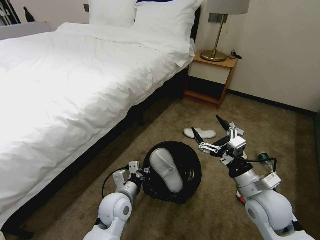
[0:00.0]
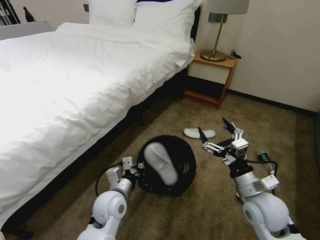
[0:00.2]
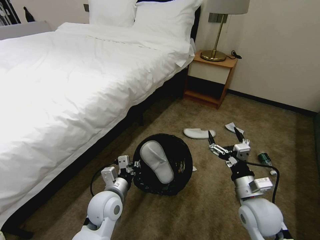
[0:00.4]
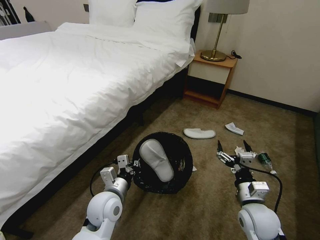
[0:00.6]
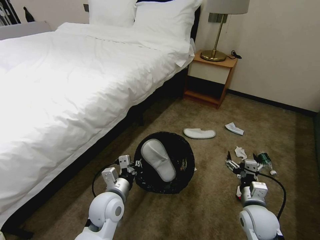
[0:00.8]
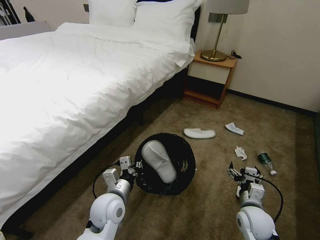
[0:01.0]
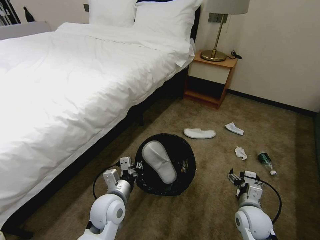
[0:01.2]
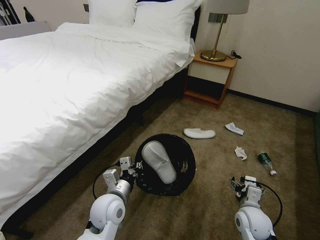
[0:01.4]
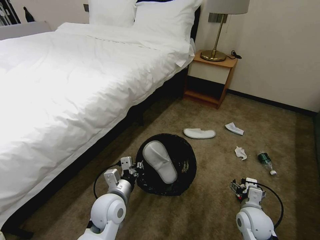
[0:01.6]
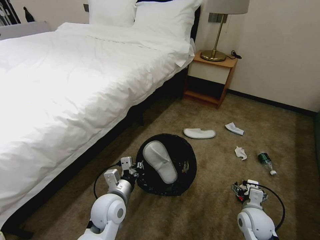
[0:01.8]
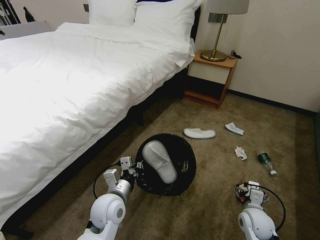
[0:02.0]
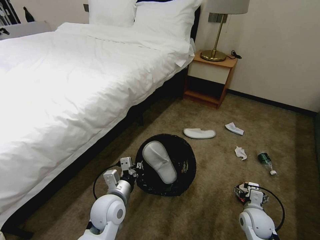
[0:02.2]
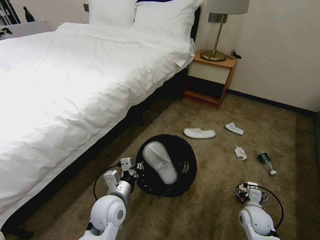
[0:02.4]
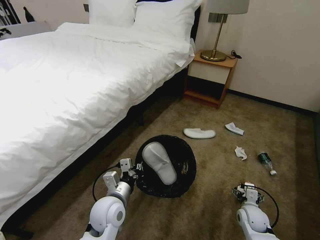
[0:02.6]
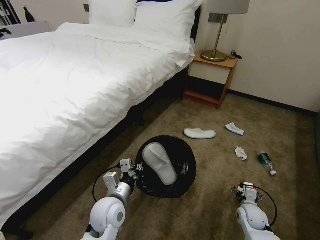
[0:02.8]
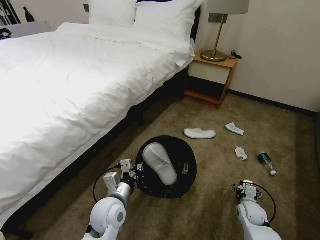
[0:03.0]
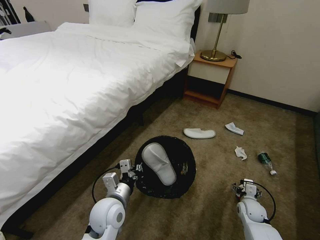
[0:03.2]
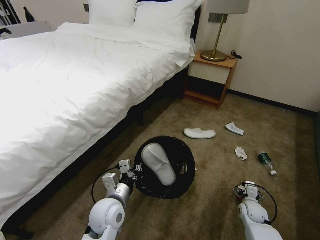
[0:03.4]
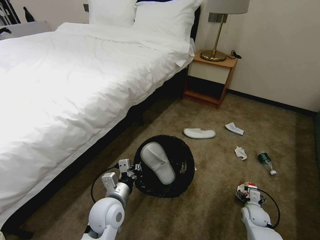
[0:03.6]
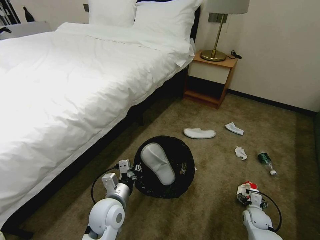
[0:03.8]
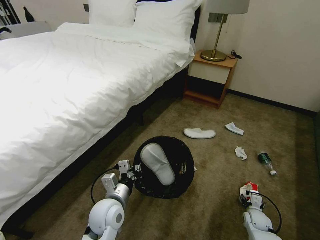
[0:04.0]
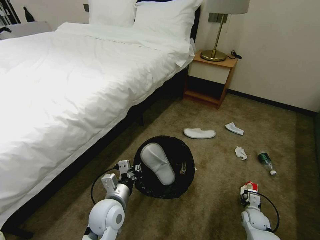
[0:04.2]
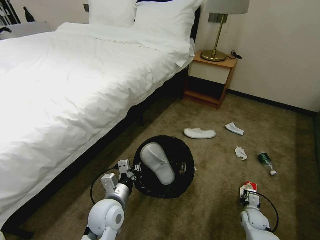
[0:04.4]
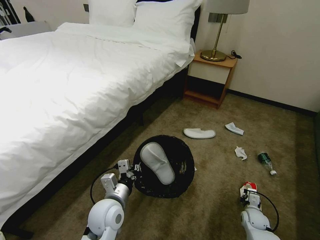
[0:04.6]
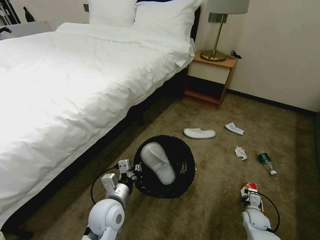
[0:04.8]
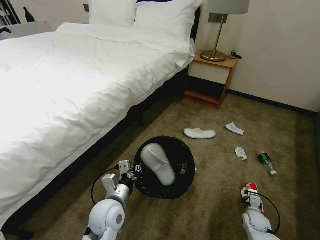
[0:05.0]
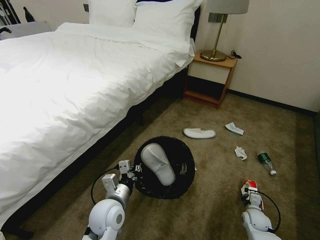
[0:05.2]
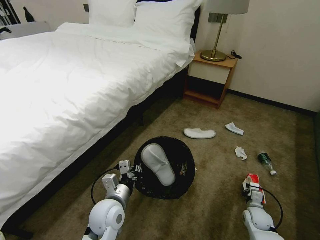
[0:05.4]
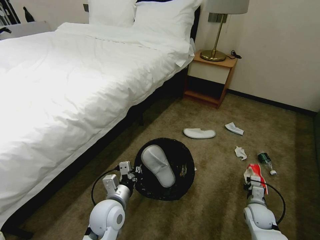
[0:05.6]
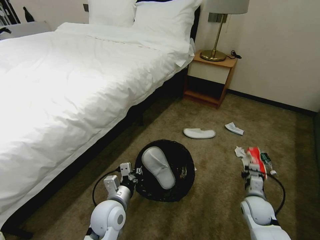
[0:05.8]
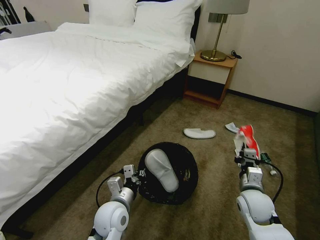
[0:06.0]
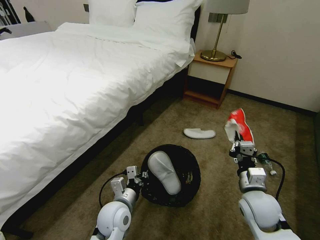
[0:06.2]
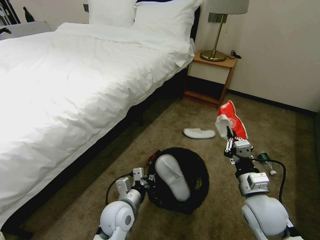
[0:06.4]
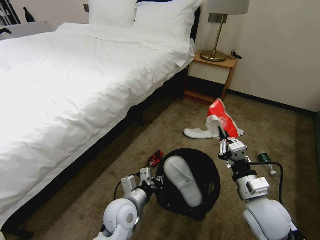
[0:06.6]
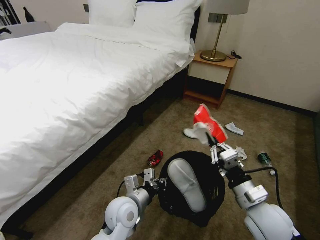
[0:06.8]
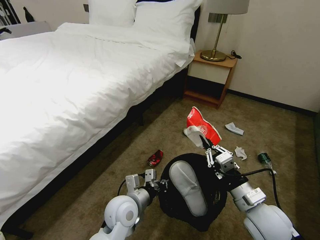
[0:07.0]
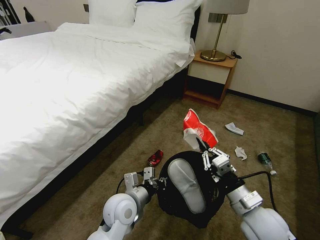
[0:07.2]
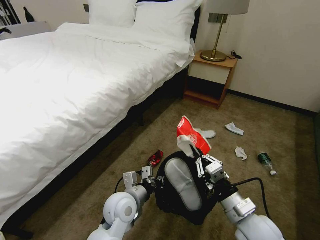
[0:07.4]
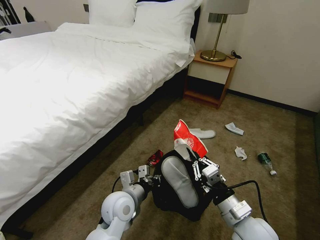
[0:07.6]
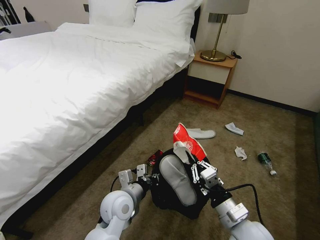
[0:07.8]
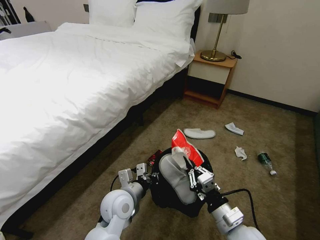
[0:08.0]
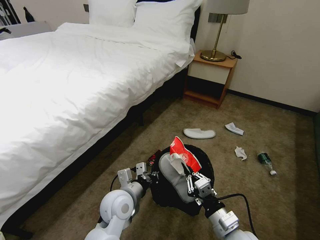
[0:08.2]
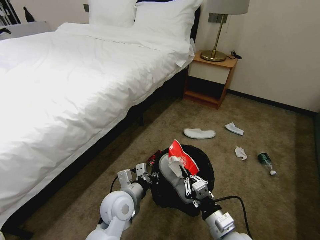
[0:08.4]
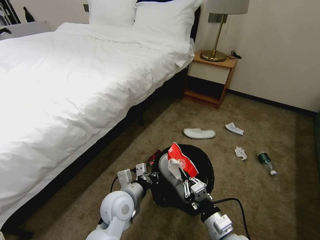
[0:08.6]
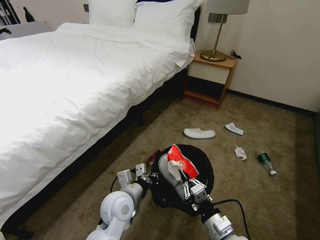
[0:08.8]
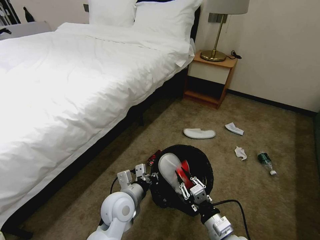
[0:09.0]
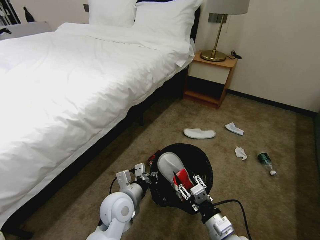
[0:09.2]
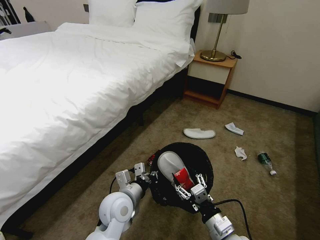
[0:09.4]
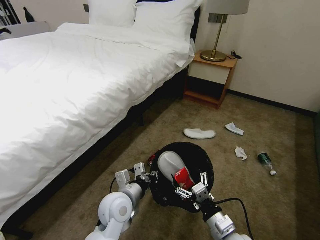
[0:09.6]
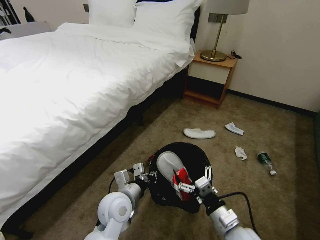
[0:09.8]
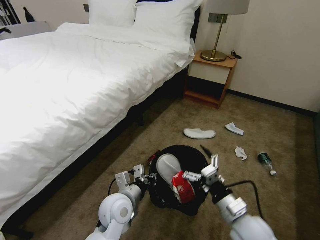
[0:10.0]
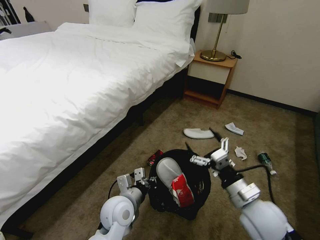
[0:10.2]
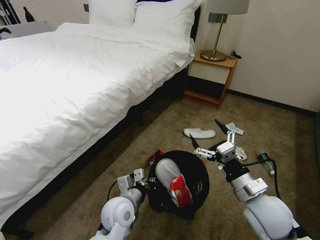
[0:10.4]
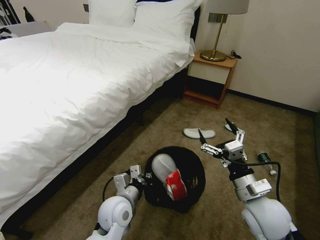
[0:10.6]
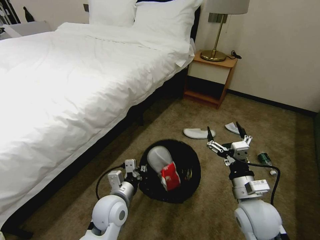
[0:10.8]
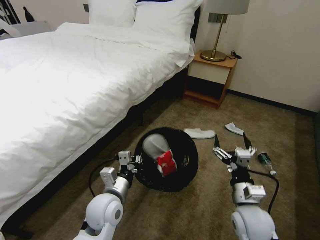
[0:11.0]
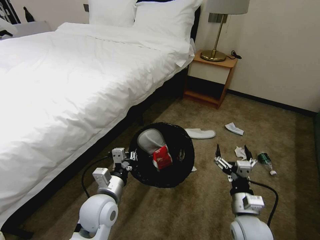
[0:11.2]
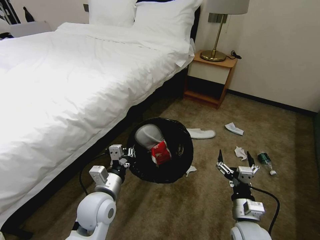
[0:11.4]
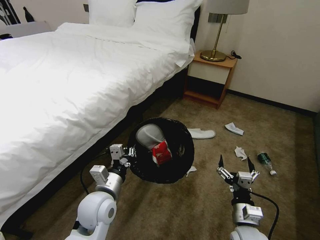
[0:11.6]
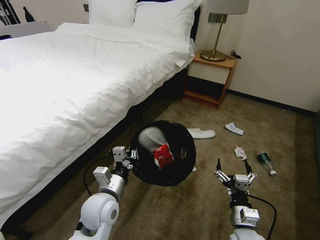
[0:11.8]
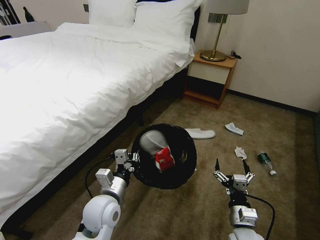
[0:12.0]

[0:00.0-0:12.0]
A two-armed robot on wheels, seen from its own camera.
Task of the whole recording: Pick up the trash bin, then pick up the garbage on the floor and place it into the trash bin.
0:00.0 to 0:01.6: The right gripper travels downward by some 15 cm.
0:01.6 to 0:03.0: The right gripper goes roughly 10 cm downward, to the right and forward.
0:03.0 to 0:04.4: The right gripper shifts approximately 5 cm downward, and closes up.
0:04.4 to 0:06.0: The right gripper travels upward and to the left by about 20 cm.
0:06.0 to 0:07.6: The right gripper travels backward, to the left and upward by about 15 cm.
0:07.6 to 0:09.0: The right gripper goes about 5 cm downward.
0:09.0 to 0:10.4: The right gripper is displaced upward, forward and to the right by roughly 15 cm, and opens.
0:10.4 to 0:12.0: The right gripper shifts roughly 15 cm downward.

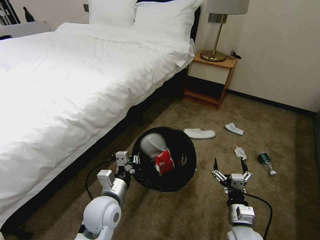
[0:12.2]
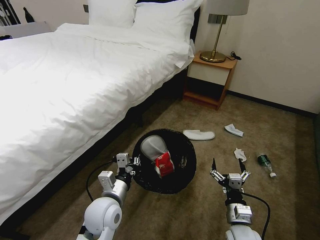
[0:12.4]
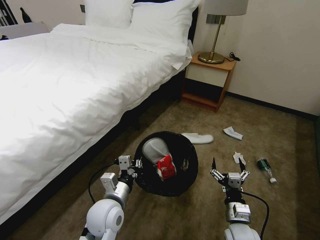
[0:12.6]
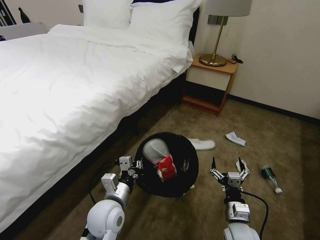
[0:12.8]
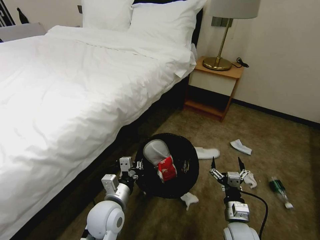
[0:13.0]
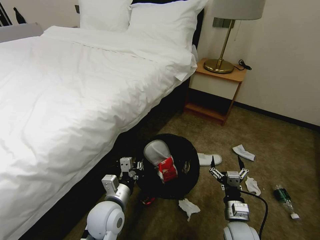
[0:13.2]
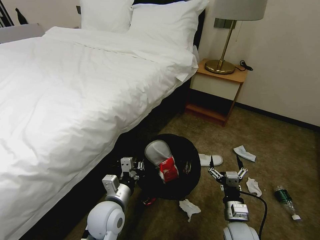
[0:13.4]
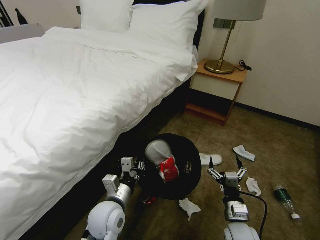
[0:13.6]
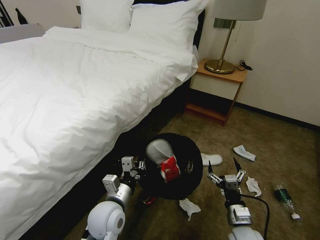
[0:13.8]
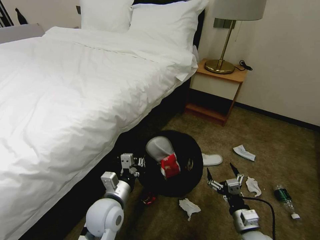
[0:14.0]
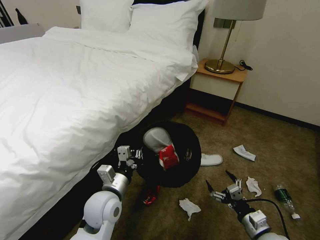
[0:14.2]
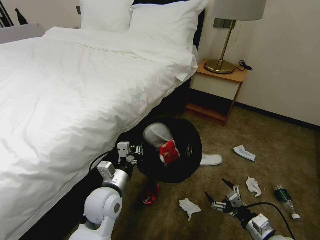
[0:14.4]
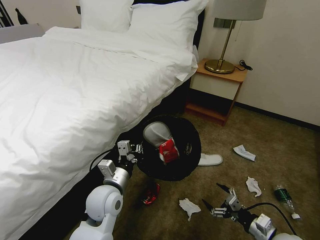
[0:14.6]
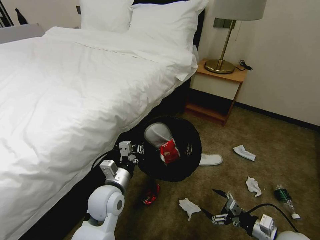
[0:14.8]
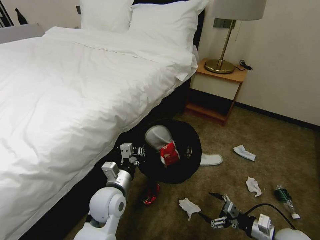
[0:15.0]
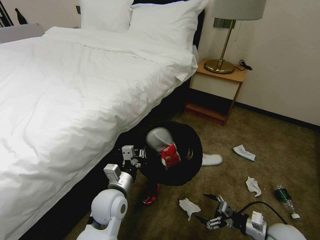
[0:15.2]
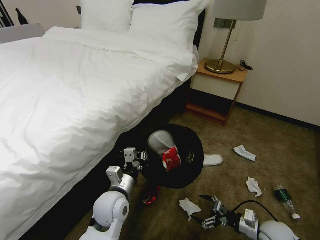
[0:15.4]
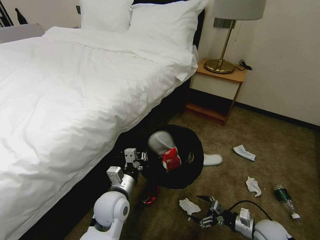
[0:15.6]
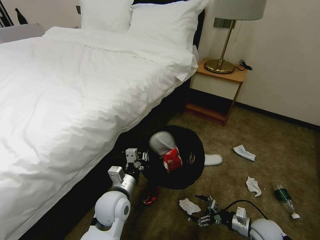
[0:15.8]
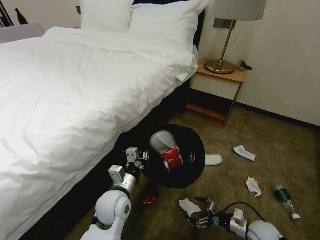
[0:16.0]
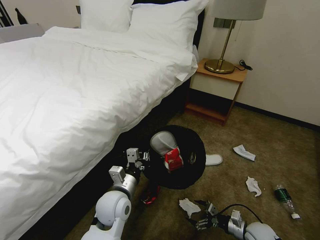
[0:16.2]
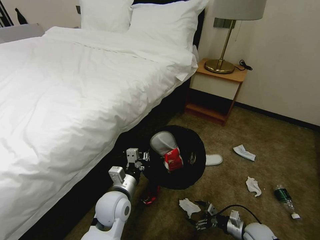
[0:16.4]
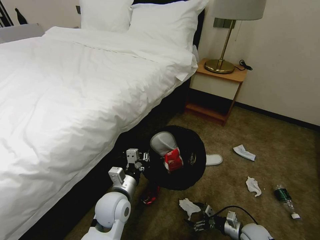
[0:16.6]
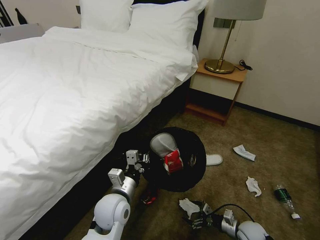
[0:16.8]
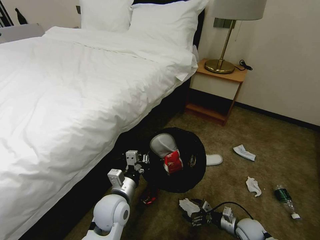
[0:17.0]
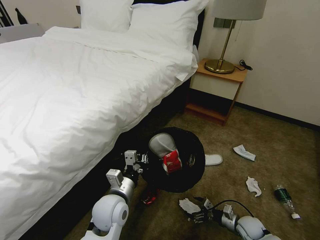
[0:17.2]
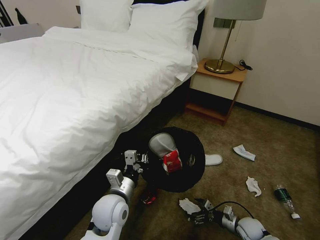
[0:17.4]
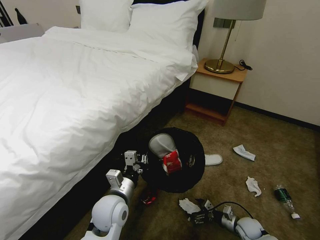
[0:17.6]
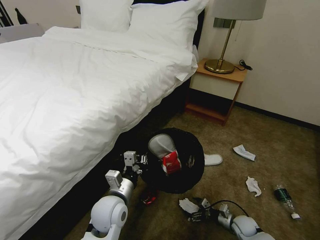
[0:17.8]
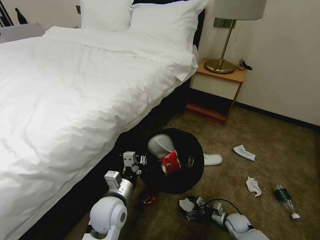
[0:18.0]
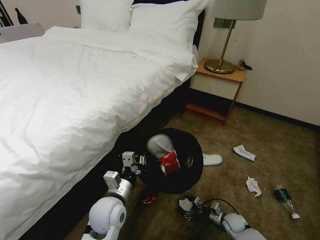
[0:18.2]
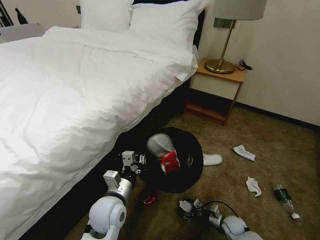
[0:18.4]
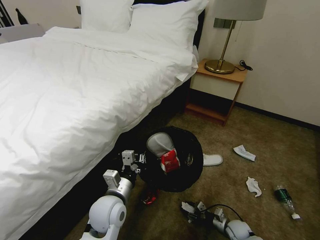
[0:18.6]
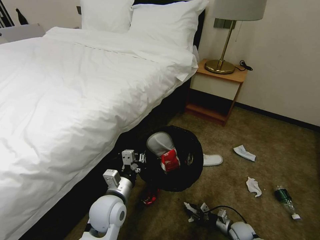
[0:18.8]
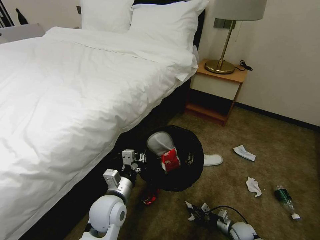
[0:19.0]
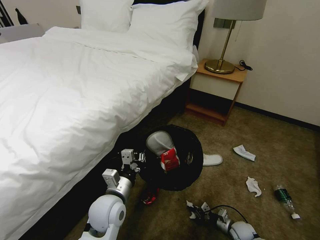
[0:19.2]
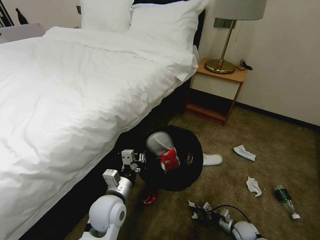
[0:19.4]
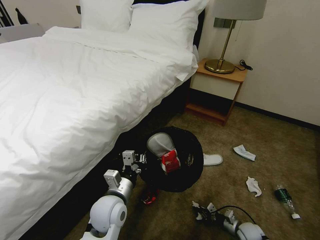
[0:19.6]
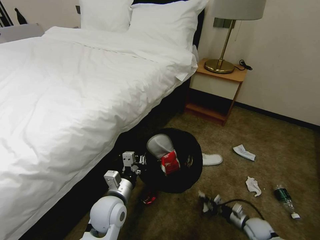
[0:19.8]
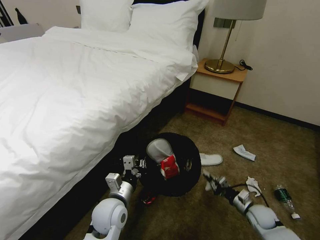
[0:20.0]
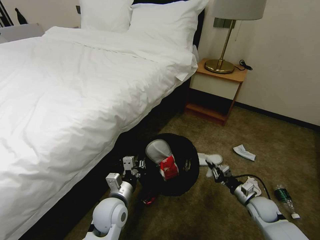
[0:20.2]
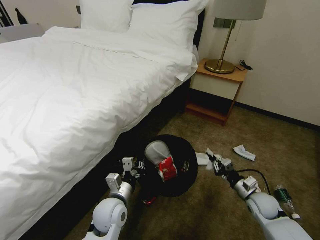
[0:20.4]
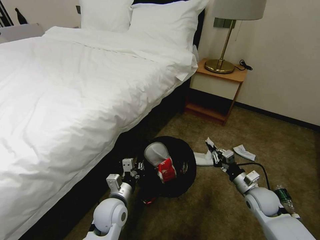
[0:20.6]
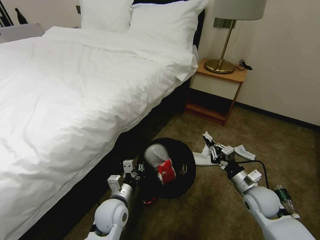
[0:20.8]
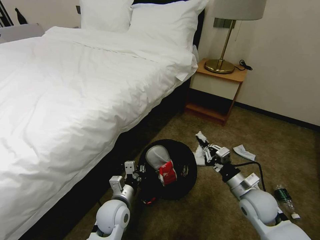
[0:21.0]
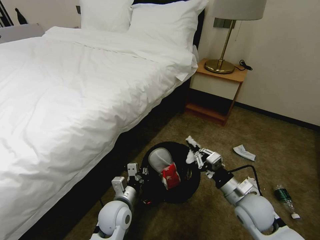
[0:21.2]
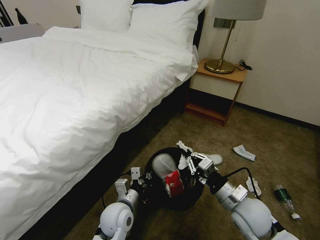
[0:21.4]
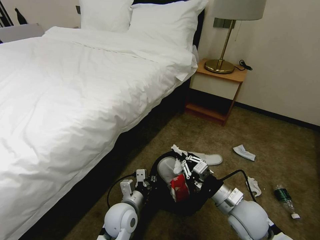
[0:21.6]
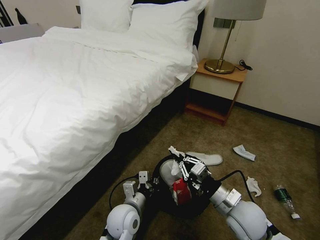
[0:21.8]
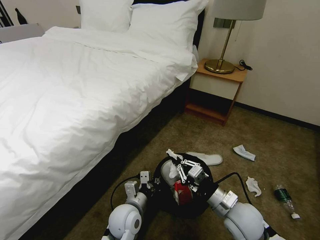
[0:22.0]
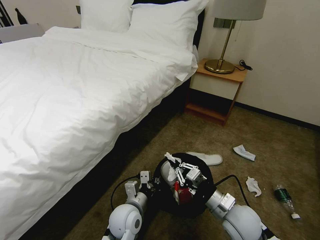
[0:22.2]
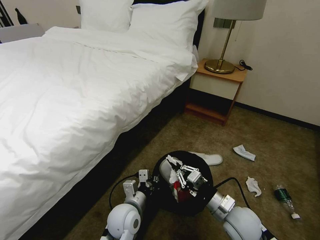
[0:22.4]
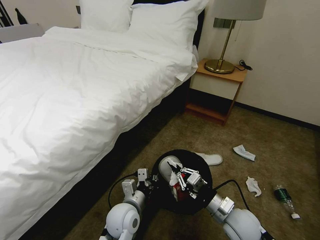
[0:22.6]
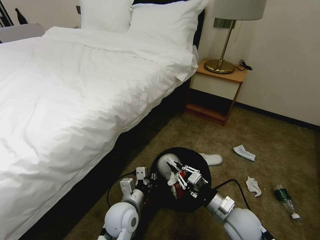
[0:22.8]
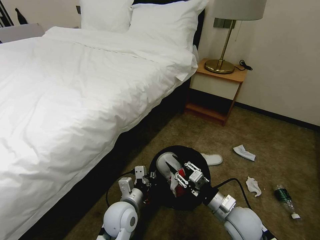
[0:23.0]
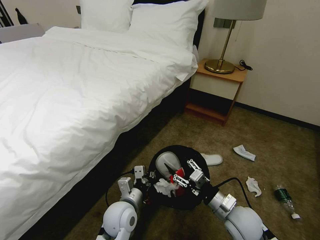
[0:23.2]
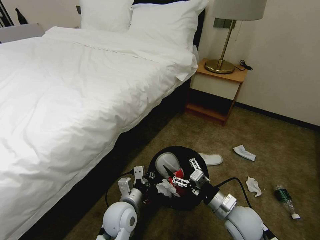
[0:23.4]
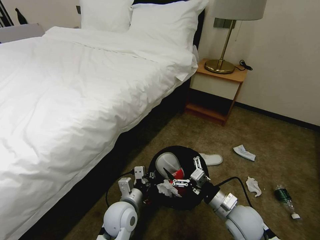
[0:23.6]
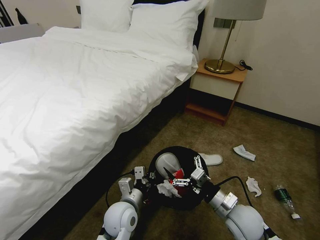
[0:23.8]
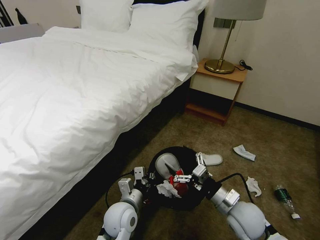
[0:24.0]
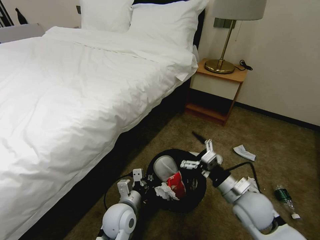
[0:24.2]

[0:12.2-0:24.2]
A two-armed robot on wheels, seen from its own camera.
Task of the whole recording: Pick up the trash bin, then pick up the garbage on the floor and place it into the trash bin.
0:13.8 to 0:15.2: The right gripper is displaced to the right by approximately 15 cm.
0:15.2 to 0:16.6: The right gripper heads downward, covering roughly 10 cm.
0:16.6 to 0:18.2: The right gripper heads downward and forward, covering about 10 cm.
0:18.2 to 0:19.8: The right gripper heads to the right, covering approximately 5 cm, and closes its fingers.
0:19.8 to 0:21.2: The right gripper goes approximately 25 cm upward and to the left.
0:21.2 to 0:22.6: The right gripper shifts by roughly 5 cm.
0:22.6 to 0:24.2: The right gripper shifts by roughly 5 cm, and opens up.
